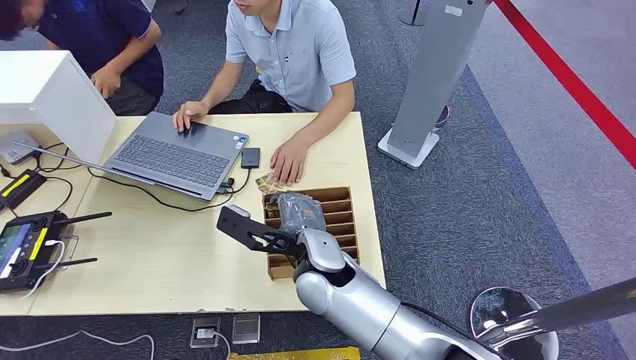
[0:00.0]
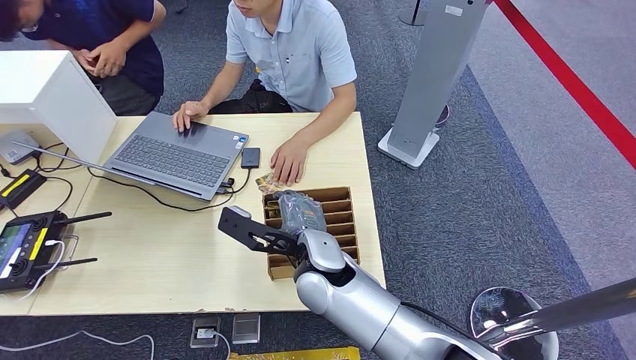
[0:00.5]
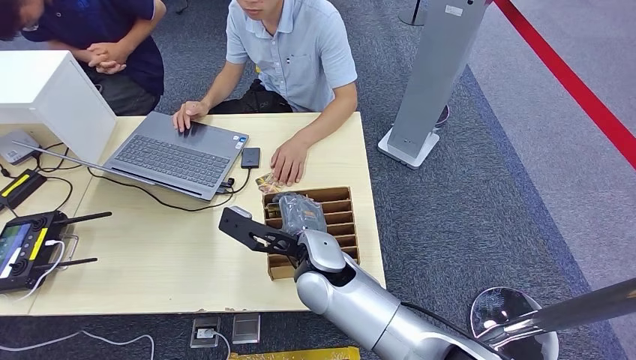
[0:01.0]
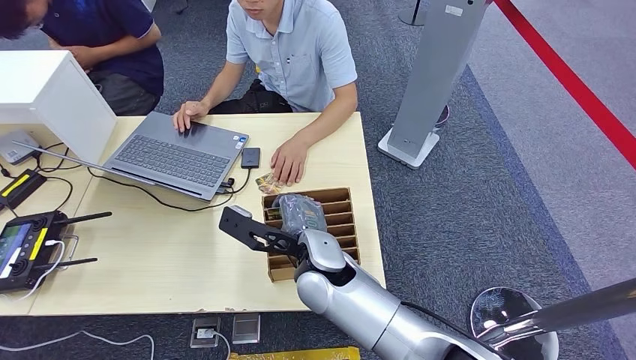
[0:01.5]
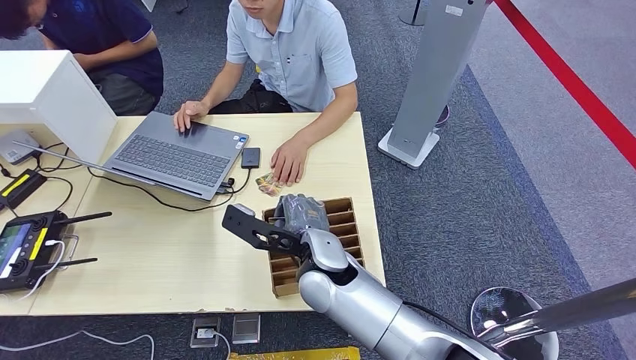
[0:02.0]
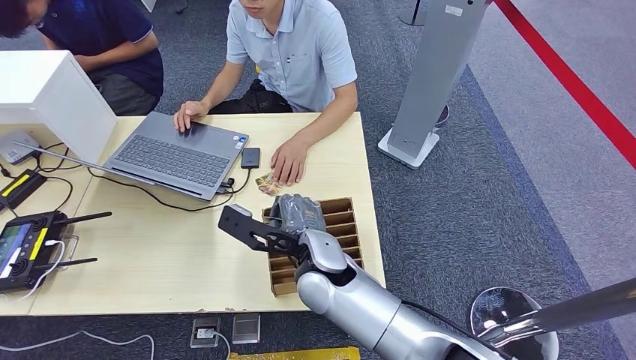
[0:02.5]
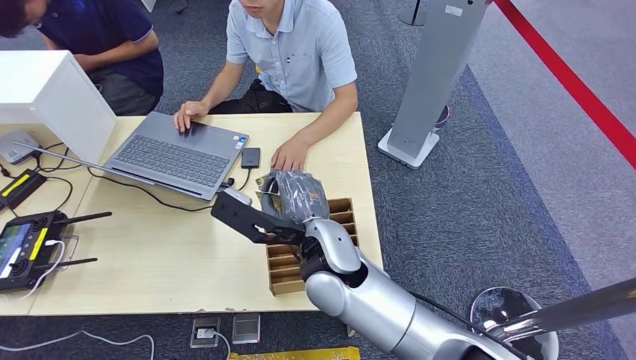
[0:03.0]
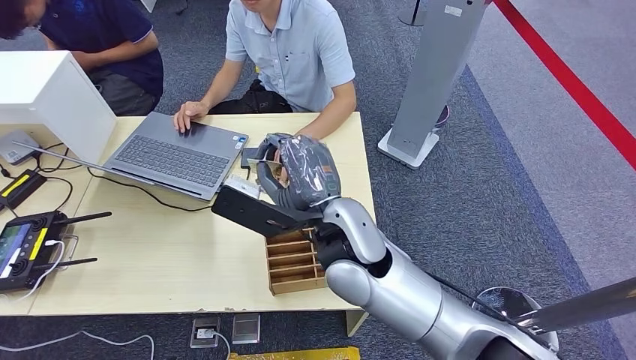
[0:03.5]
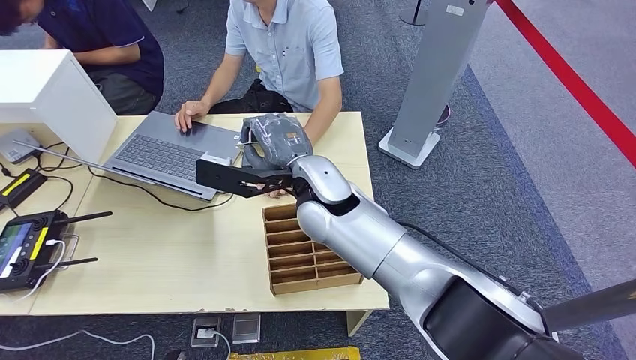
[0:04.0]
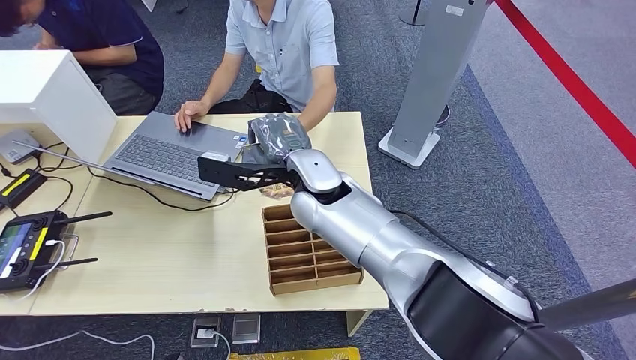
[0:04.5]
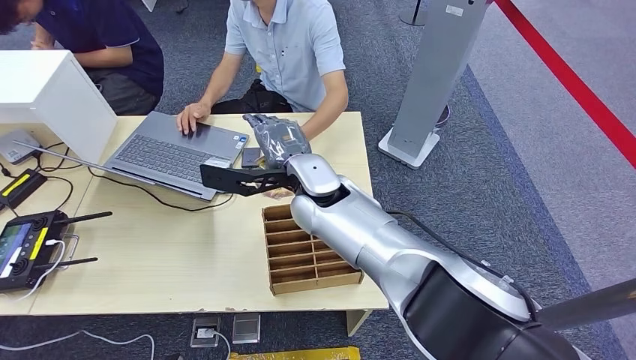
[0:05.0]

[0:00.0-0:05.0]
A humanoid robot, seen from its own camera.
Step, 0:00.0 to 0:03.0: Pick up the room card from the card holder.
Step, 0:04.0 to 0:05.0: Hand the room card to the target.
0:02.5 to 0:05.0: The right hand heads forward and upward, covering approximately 10 cm.

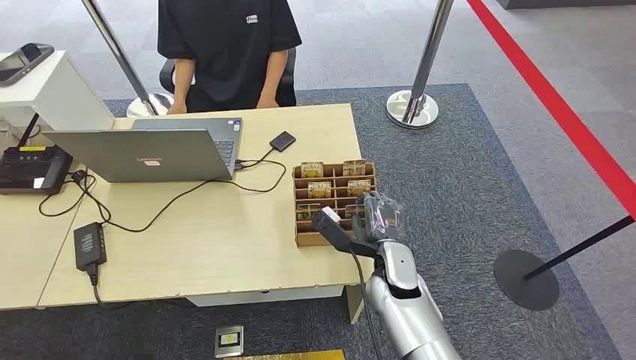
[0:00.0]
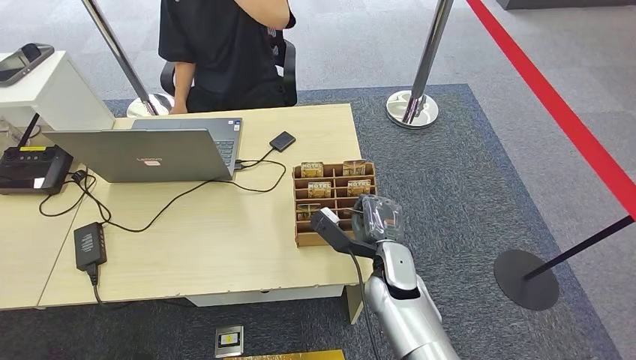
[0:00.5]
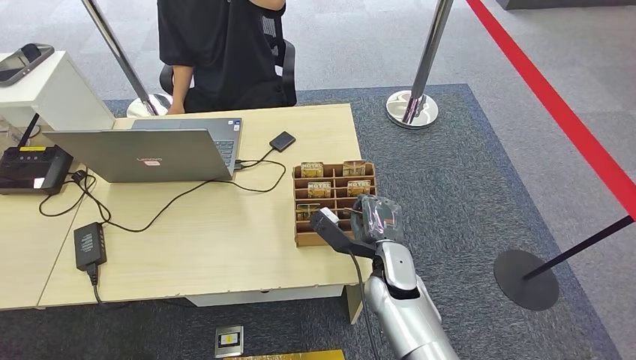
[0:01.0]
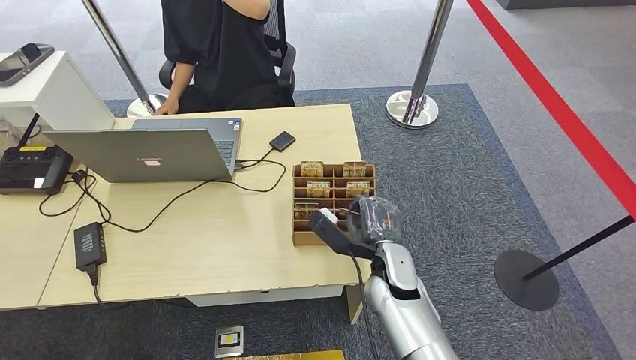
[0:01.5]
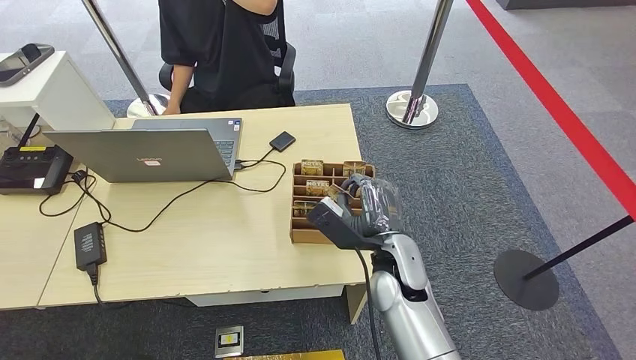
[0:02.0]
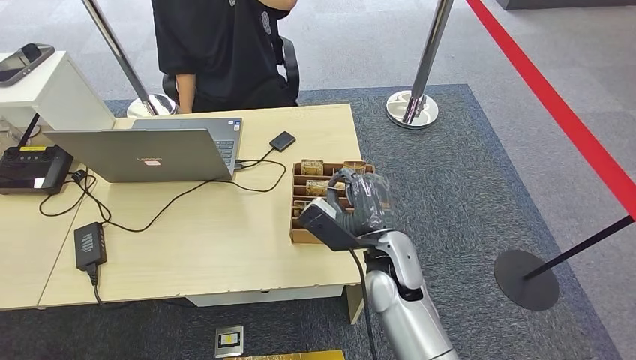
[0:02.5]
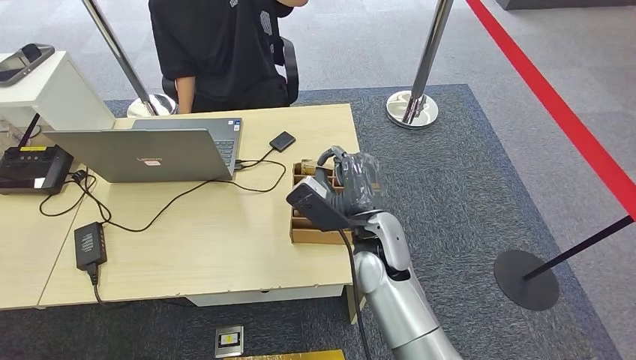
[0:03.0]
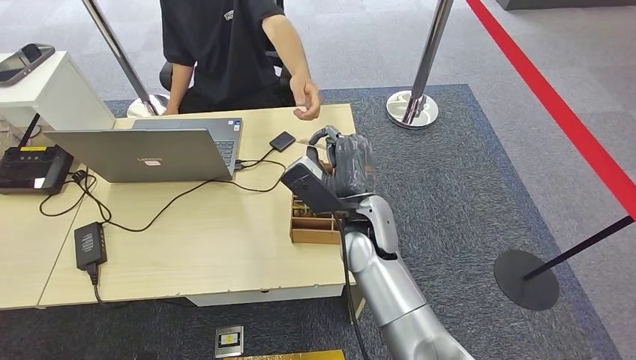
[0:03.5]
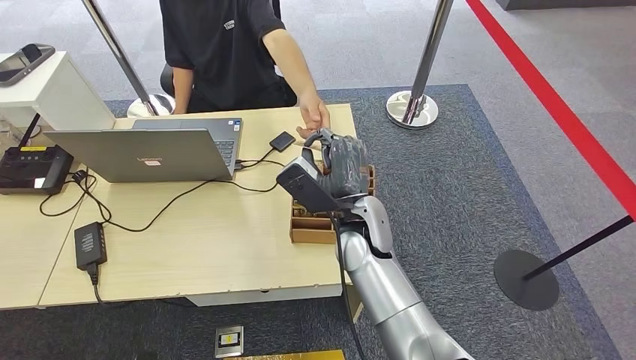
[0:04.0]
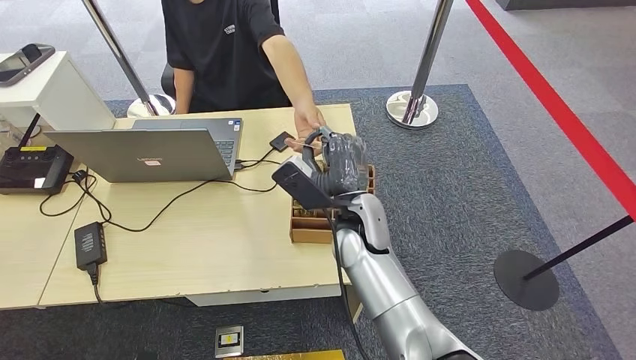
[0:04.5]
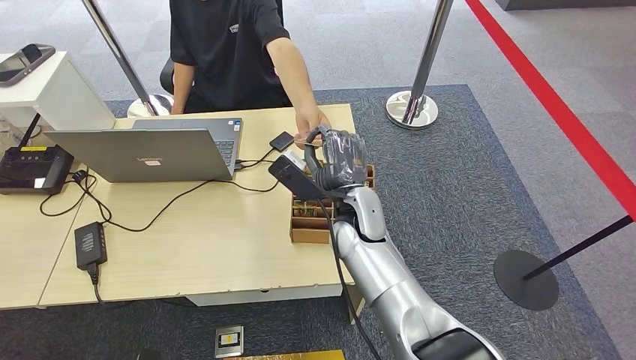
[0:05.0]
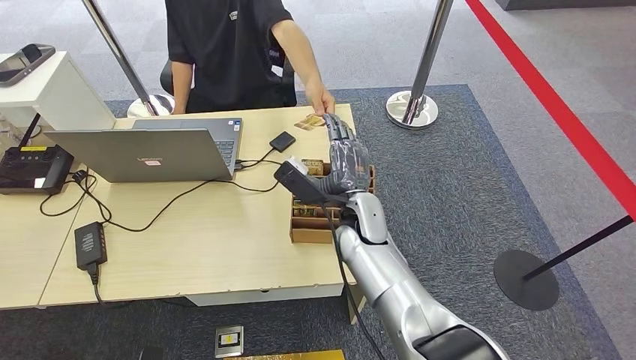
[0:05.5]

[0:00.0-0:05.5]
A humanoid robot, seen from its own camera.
Step, 0:00.0 to 0:03.0: Pick up the room card from the card holder.
Step, 0:03.5 to 0:05.5: Hand the room card to the target.
0:02.0 to 0:03.5: The right hand goes about 5 cm upward.
0:03.5 to 0:05.5: The hands move only a little.
